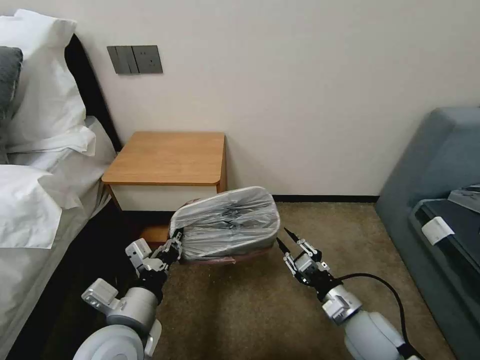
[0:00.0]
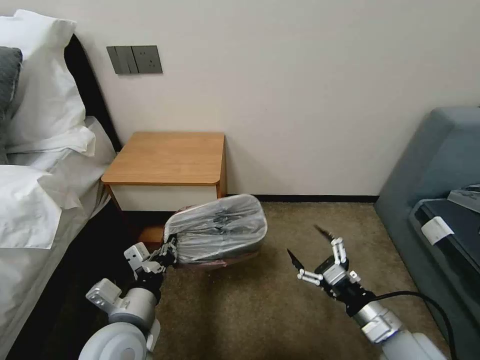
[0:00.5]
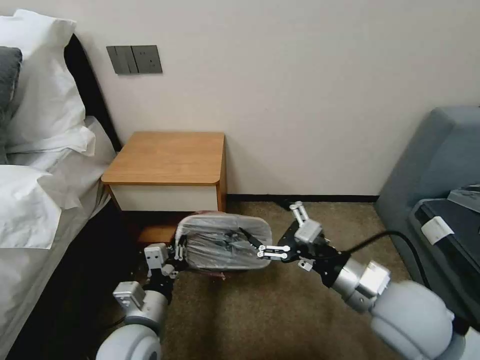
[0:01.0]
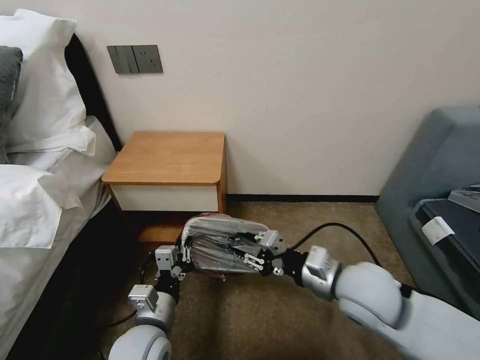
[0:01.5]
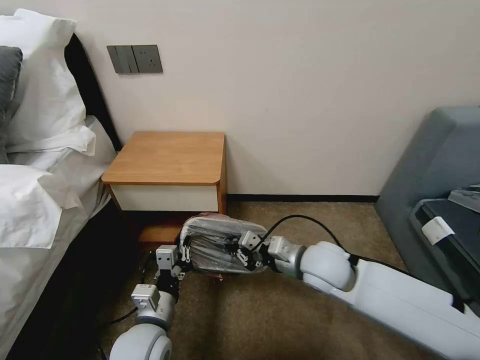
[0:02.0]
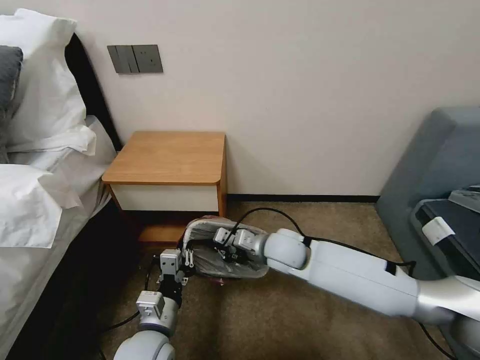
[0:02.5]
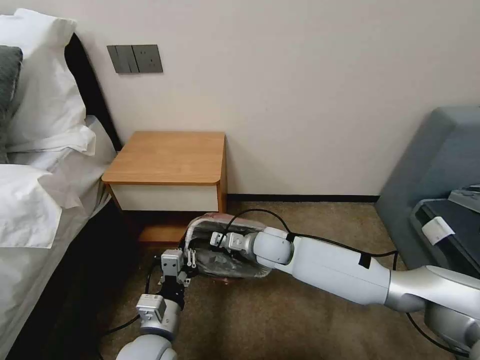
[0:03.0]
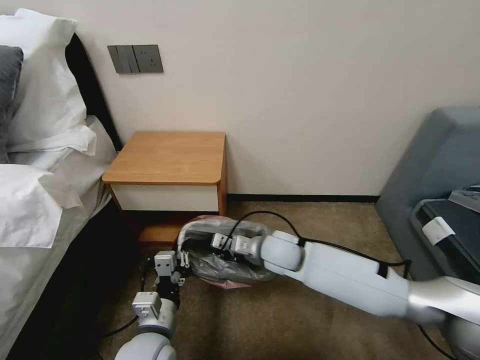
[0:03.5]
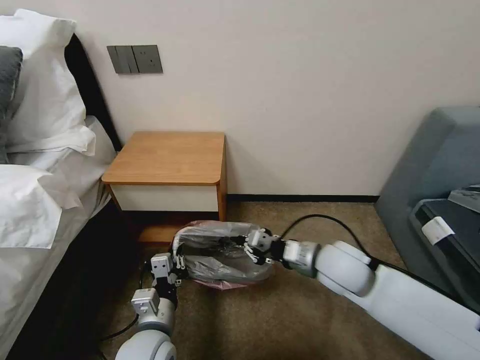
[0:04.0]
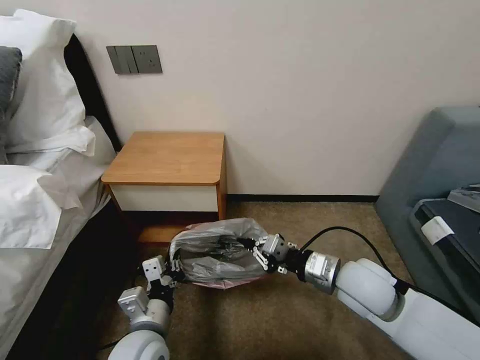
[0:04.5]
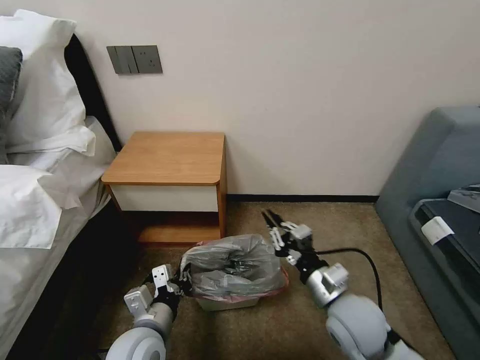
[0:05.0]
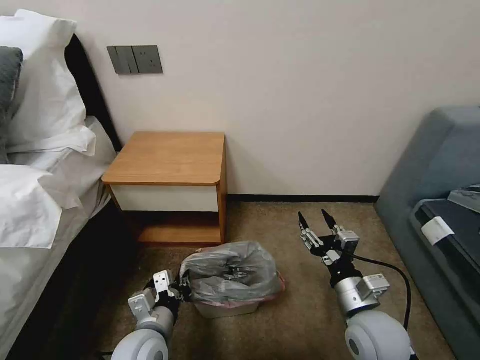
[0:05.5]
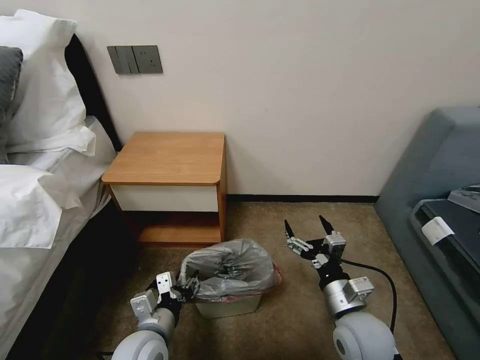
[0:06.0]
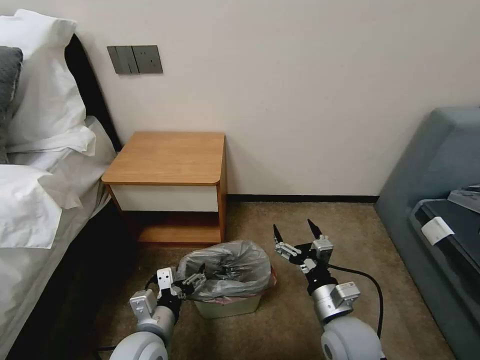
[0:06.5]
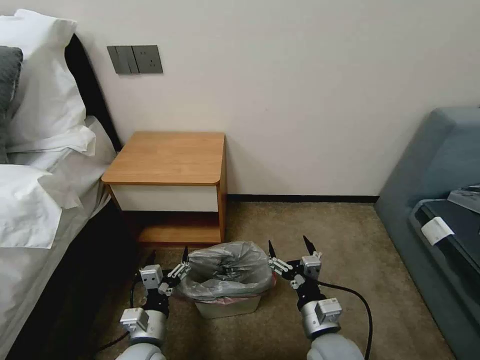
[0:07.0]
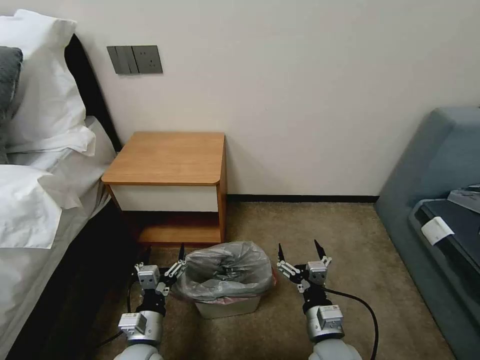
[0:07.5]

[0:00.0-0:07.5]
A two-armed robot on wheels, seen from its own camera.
Task of the whole recording: Pick up the garbage bag from the table and place it over the trash can.
0:00.0 to 0:02.0: The left gripper moves downward, some 10 cm. The right gripper goes approximately 15 cm forward, upward and to the left, and opens and closes again.
0:02.0 to 0:04.0: The right gripper goes to the left and returns, some 10 cm each way.
0:04.0 to 0:05.5: The right gripper moves backward and downward, roughly 15 cm, and opens its fingers.
0:05.5 to 0:07.5: The right gripper goes approximately 10 cm downward and to the left. Meanwhile the left gripper travels downward by about 5 cm, and opens.

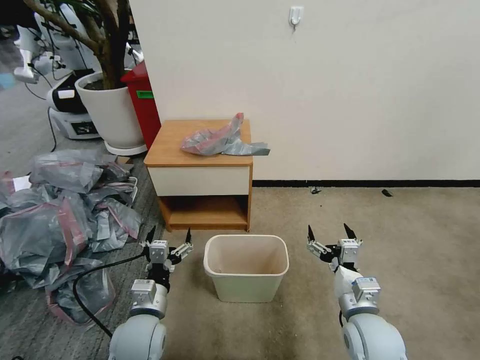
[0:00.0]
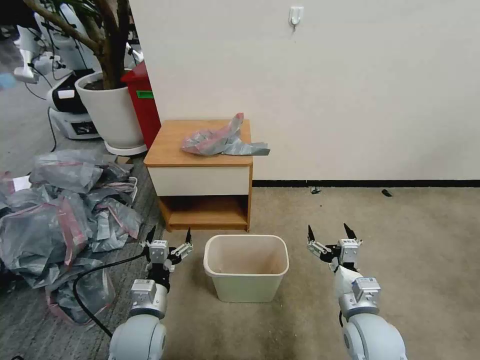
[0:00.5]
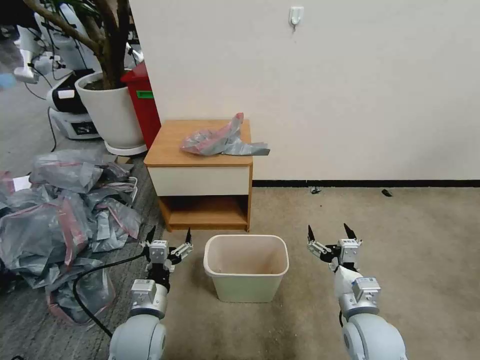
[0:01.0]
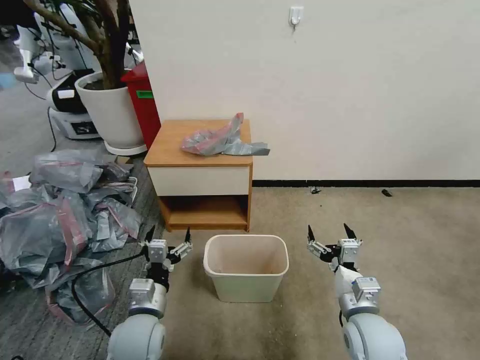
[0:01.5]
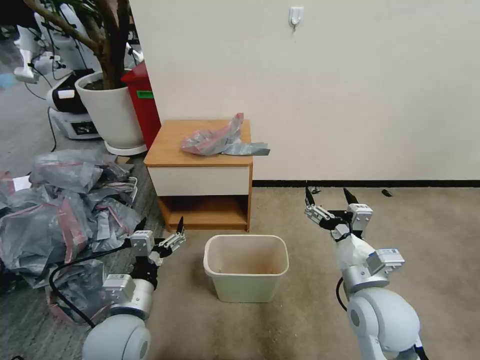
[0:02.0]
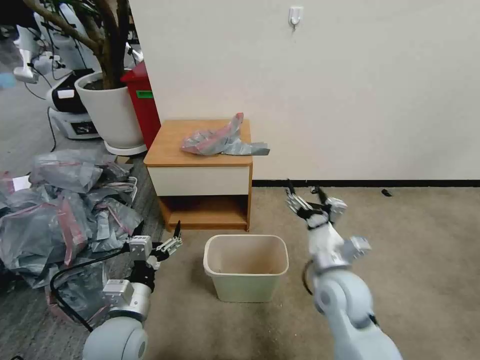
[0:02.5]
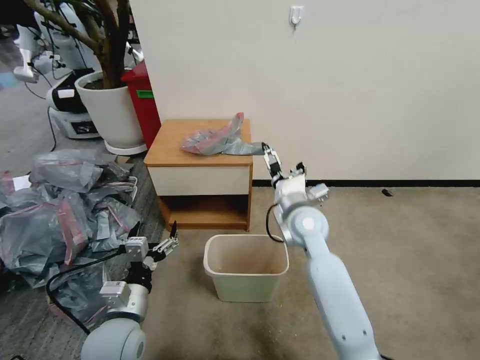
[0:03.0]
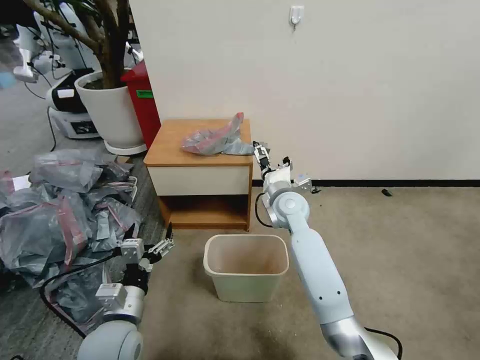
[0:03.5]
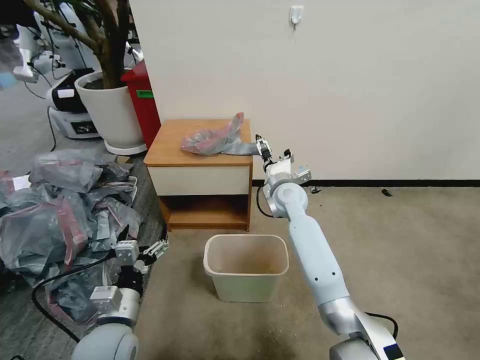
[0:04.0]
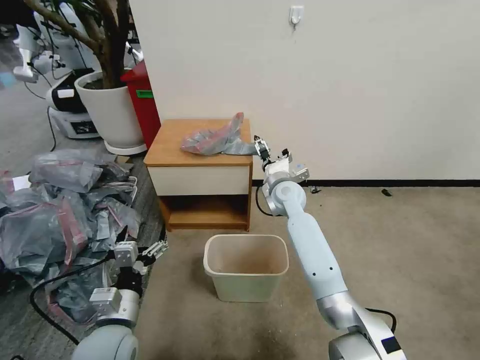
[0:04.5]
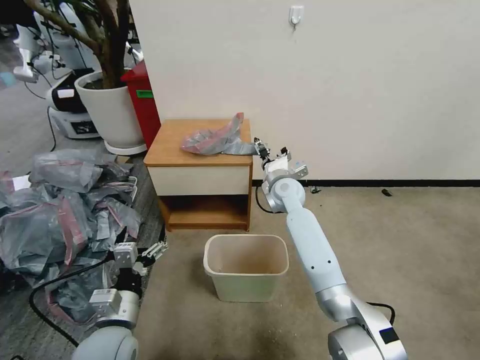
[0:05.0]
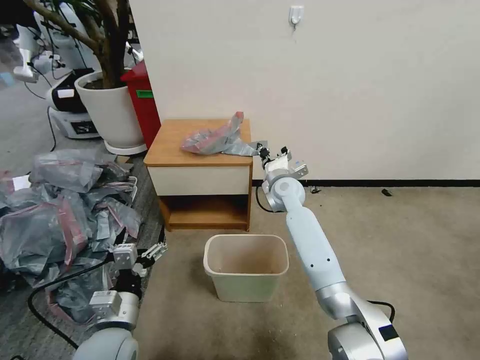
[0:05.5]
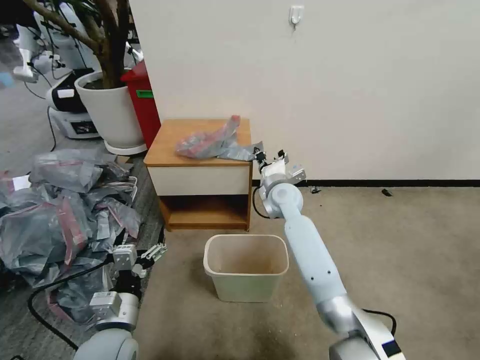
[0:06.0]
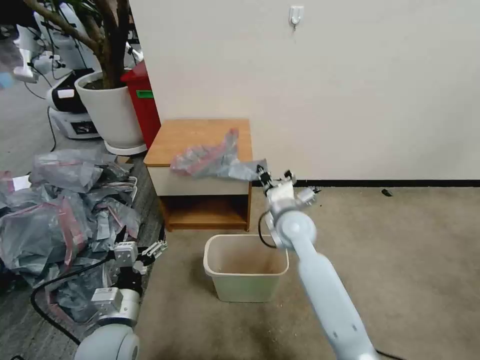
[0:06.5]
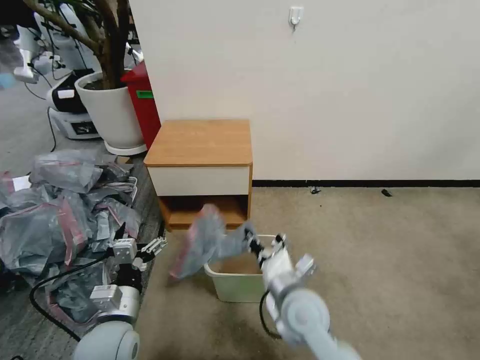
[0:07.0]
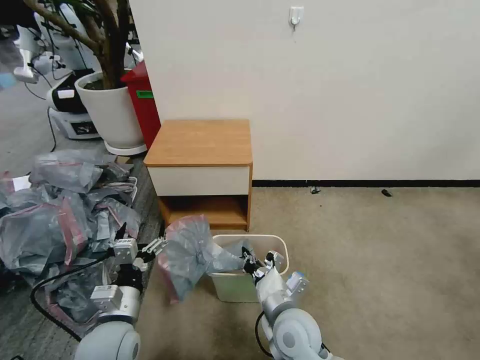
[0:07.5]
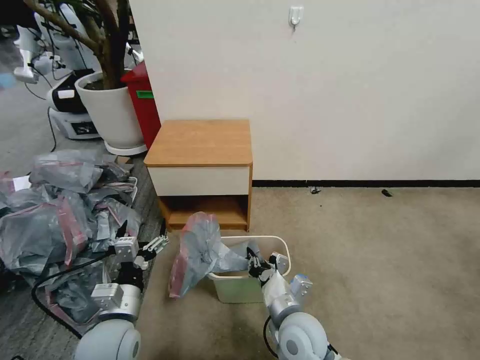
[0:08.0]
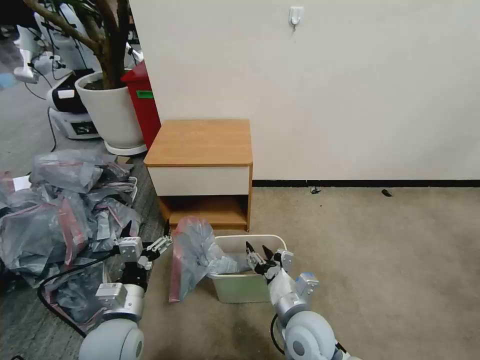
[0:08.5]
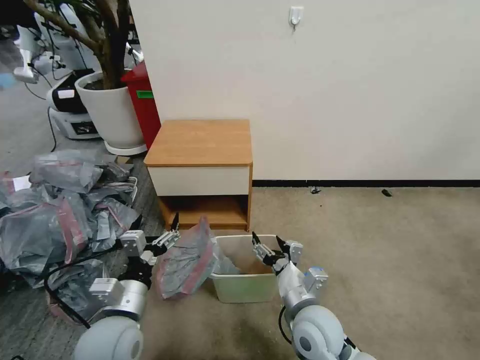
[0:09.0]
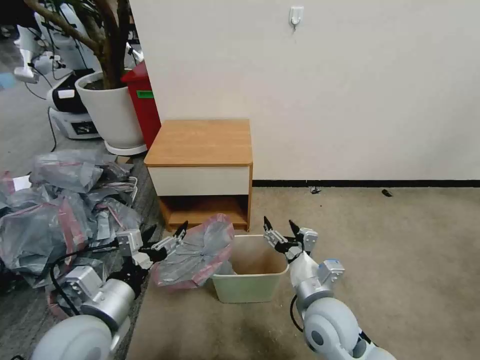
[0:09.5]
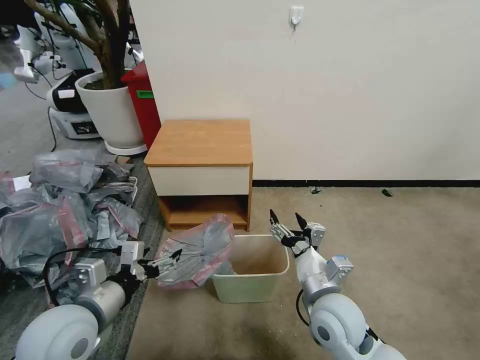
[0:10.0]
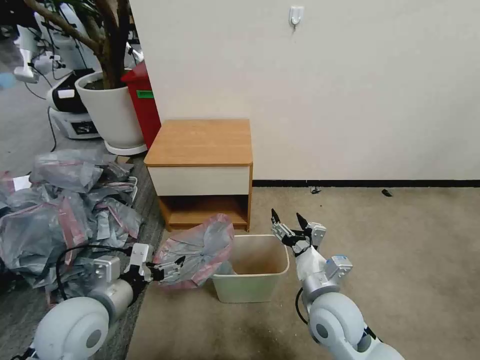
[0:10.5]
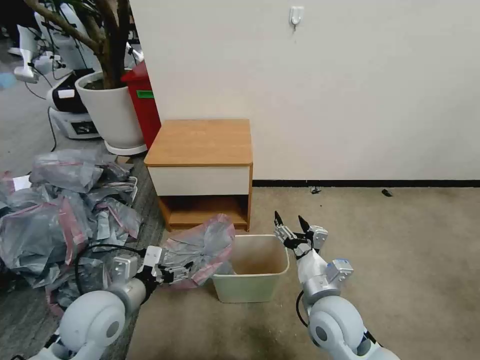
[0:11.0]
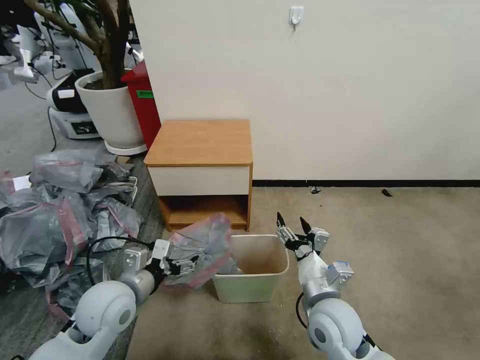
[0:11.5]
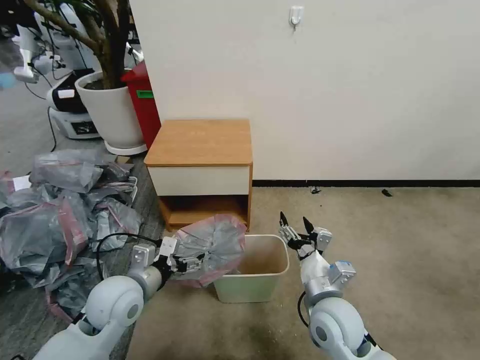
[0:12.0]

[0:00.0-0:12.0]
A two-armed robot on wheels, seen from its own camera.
Task of the whole recording: Pick up the garbage bag from the table and place it over the trash can.
0:02.0 to 0:04.0: The right gripper heads forward, covering roughly 30 cm.
0:04.0 to 0:06.0: The right gripper closes its fingers.
0:06.0 to 0:08.0: The right gripper goes roughly 30 cm backward.
0:08.0 to 0:10.0: The right gripper goes approximately 10 cm to the right and upward, and opens; the left gripper is displaced upward by about 10 cm.
0:10.0 to 0:12.0: The left gripper goes roughly 10 cm forward and downward.

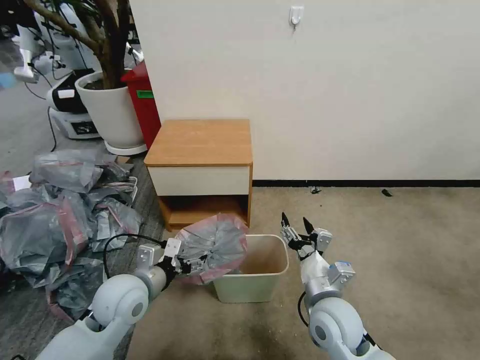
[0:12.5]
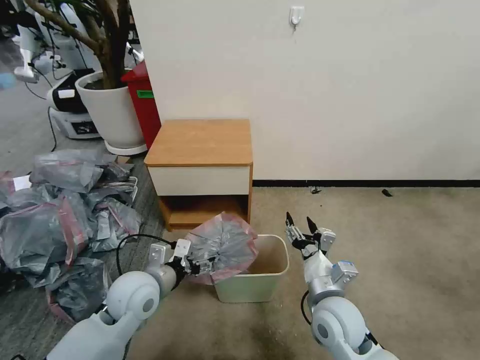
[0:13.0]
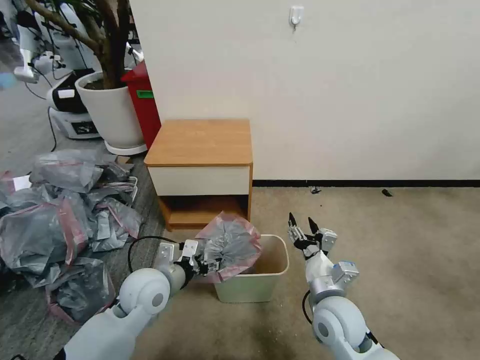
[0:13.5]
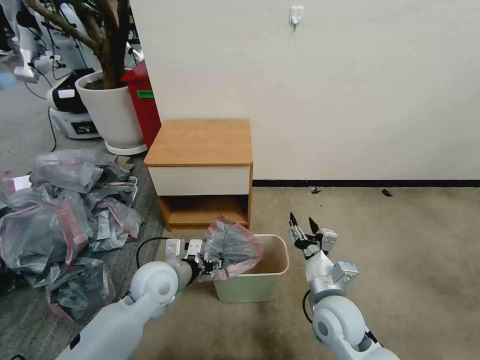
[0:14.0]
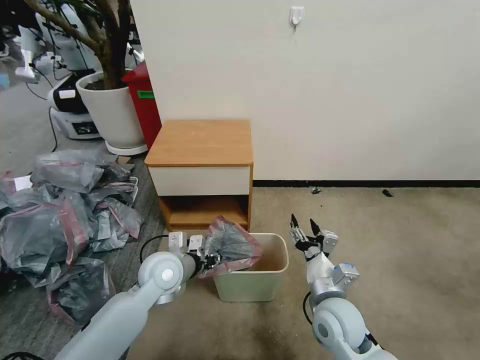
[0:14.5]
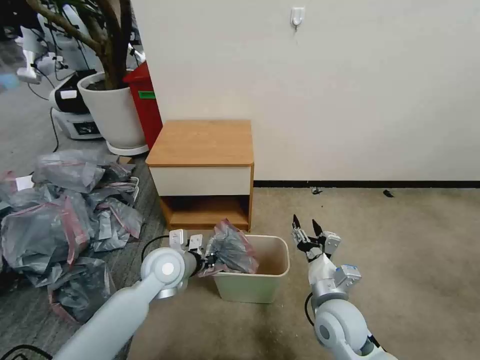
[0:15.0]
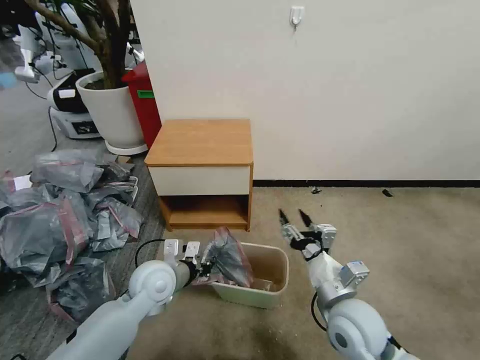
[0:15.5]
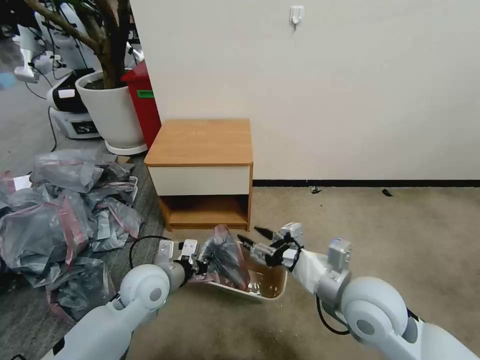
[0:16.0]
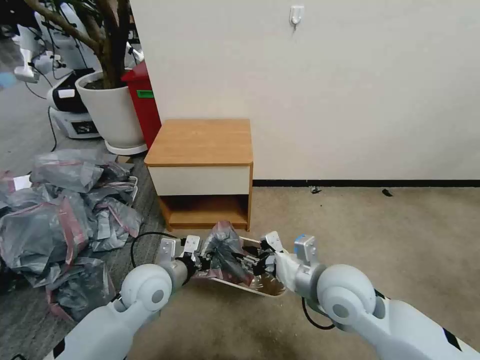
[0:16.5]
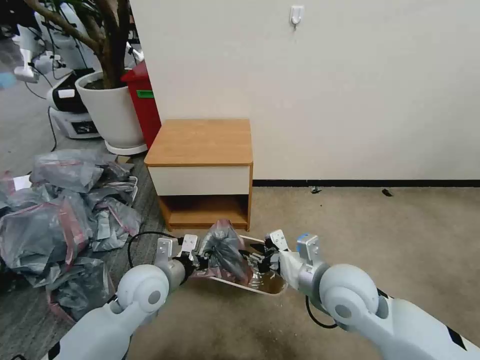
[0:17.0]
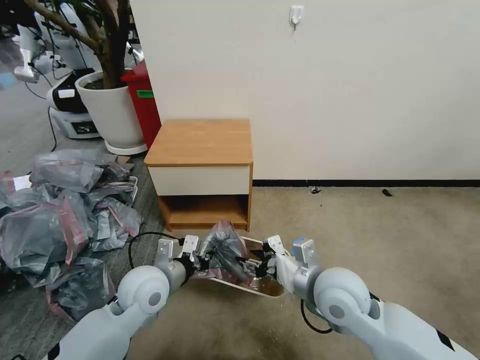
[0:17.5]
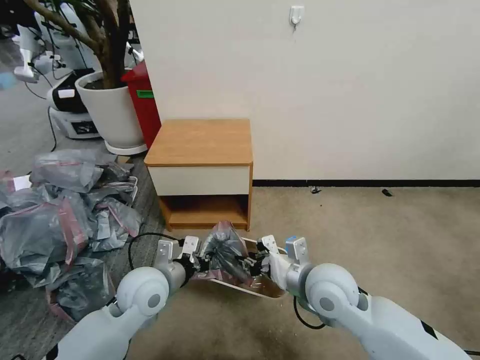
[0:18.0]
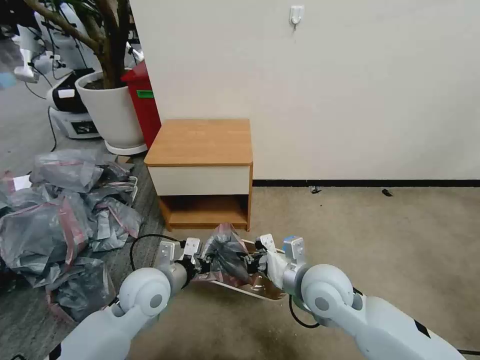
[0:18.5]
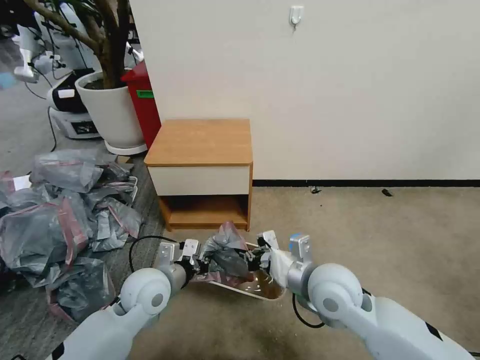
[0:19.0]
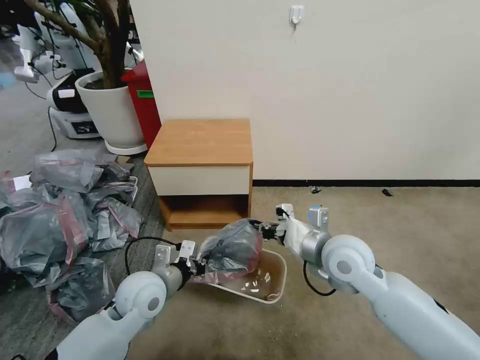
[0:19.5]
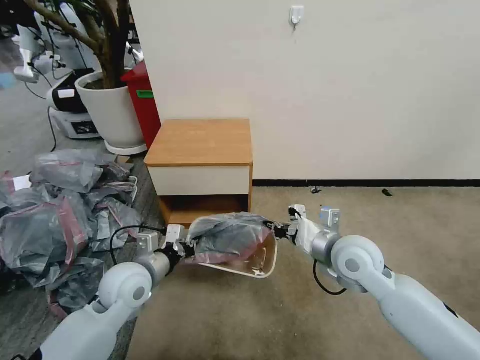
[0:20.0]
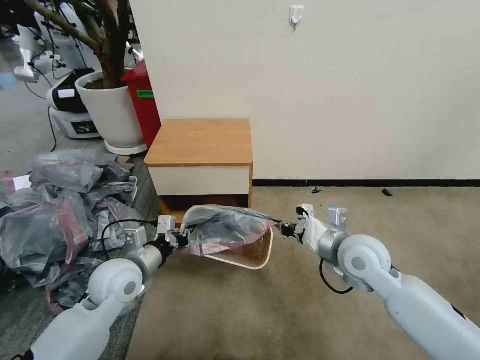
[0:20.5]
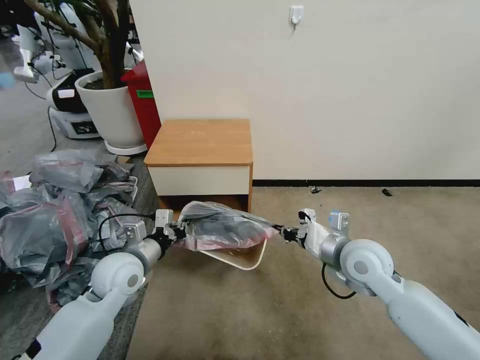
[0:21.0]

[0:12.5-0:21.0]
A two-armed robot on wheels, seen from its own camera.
Task of the whole recording: Pick up the garbage bag from the table and place it over the trash can.
0:12.5 to 0:14.5: The left gripper is displaced forward and to the right by about 10 cm, and closes.
0:14.5 to 0:16.5: The right gripper is displaced upward by some 10 cm. Meanwhile the left gripper closes up.
0:16.5 to 0:19.0: The right gripper closes its fingers.
0:19.0 to 0:21.0: The right gripper shifts roughly 10 cm to the right and forward. The left gripper is displaced to the left by roughly 5 cm.
